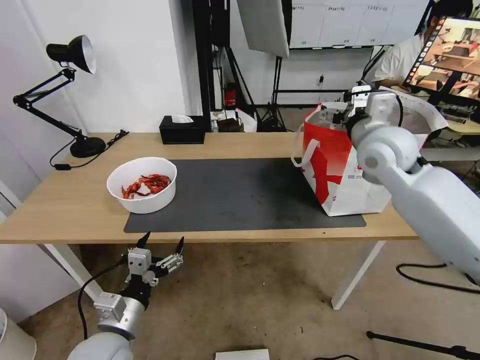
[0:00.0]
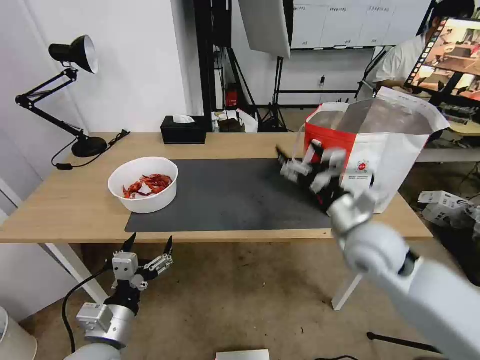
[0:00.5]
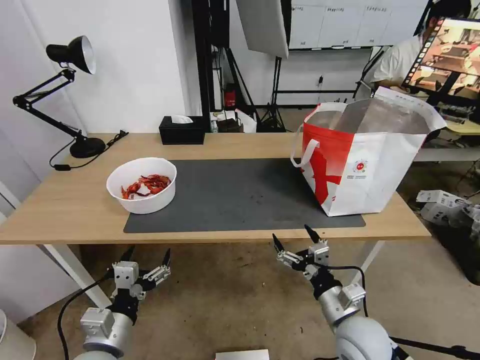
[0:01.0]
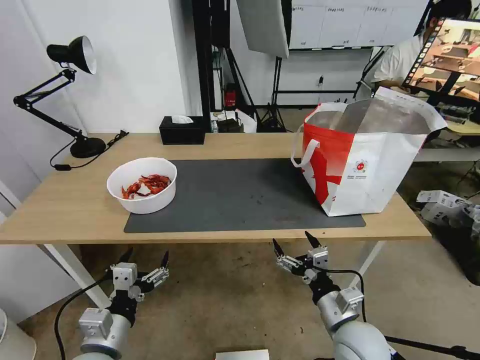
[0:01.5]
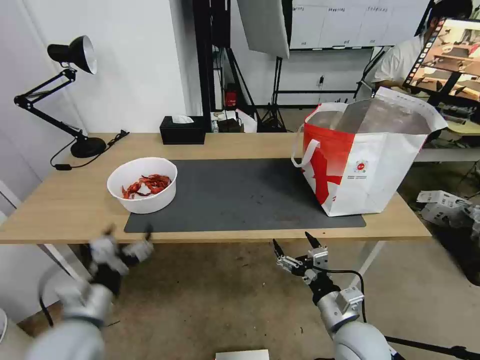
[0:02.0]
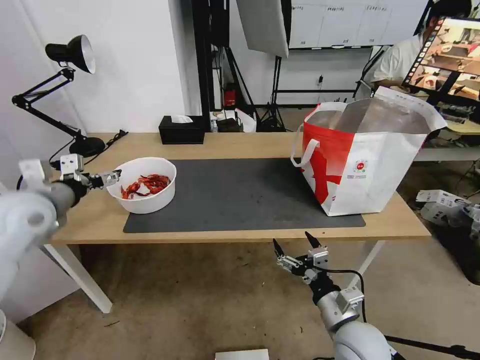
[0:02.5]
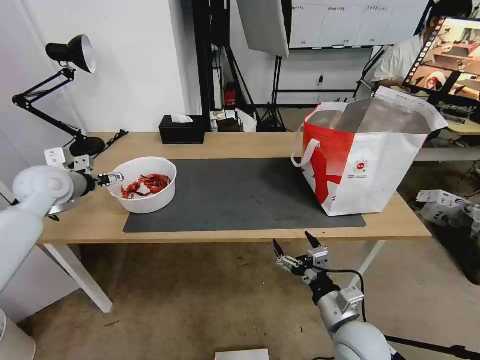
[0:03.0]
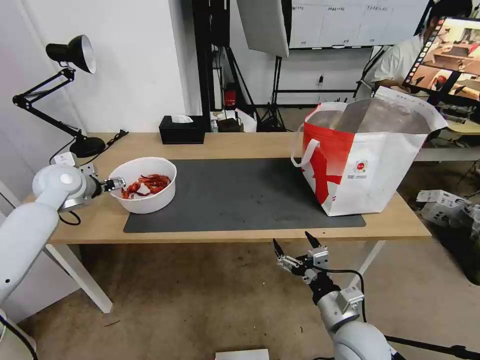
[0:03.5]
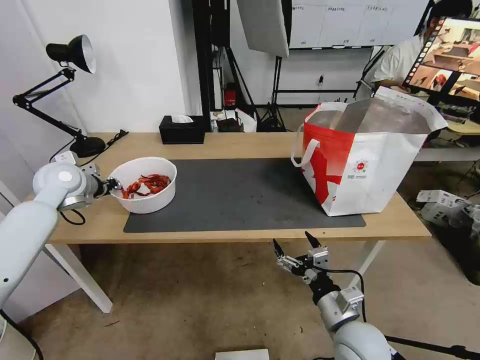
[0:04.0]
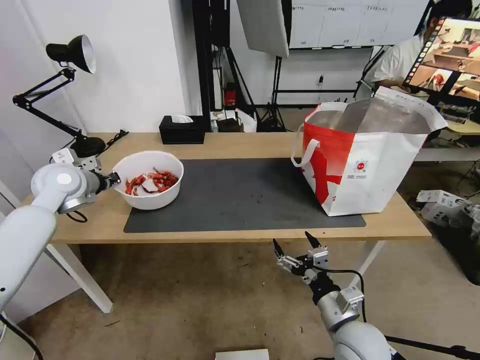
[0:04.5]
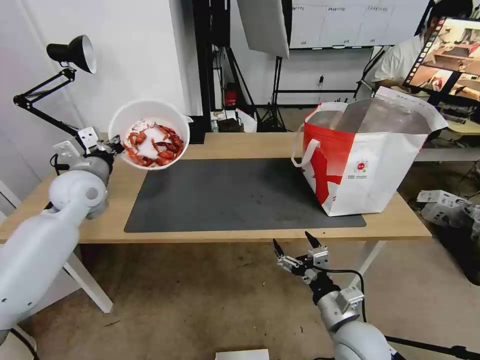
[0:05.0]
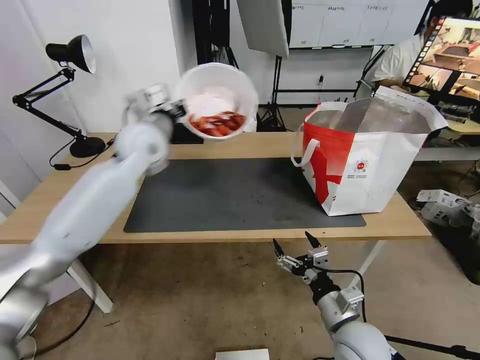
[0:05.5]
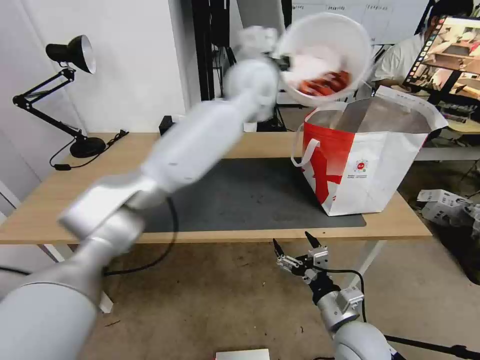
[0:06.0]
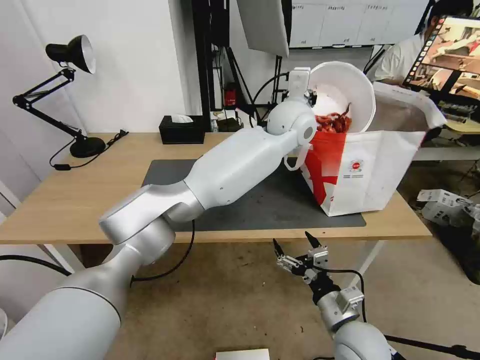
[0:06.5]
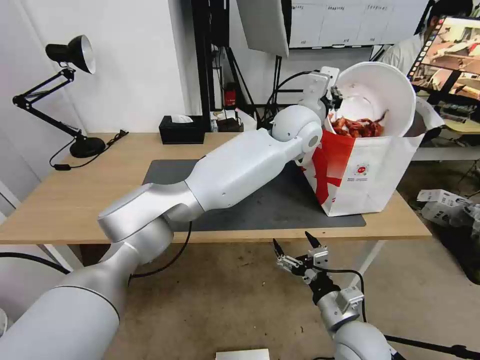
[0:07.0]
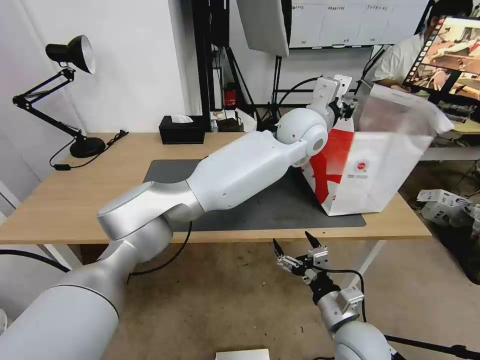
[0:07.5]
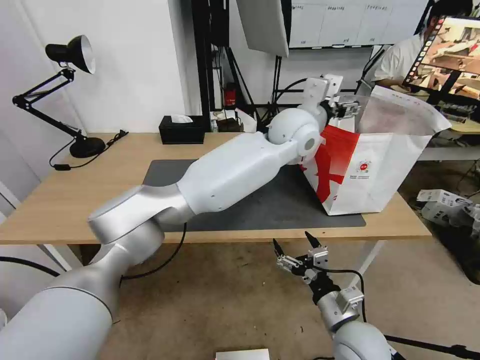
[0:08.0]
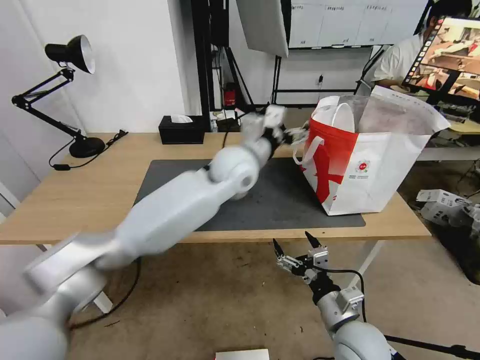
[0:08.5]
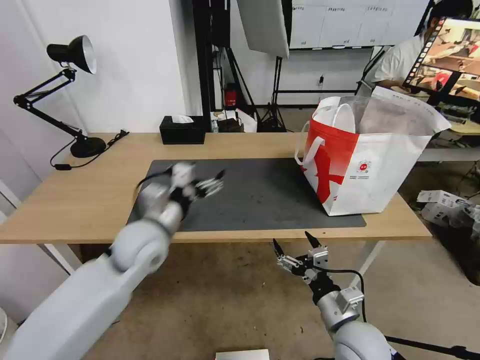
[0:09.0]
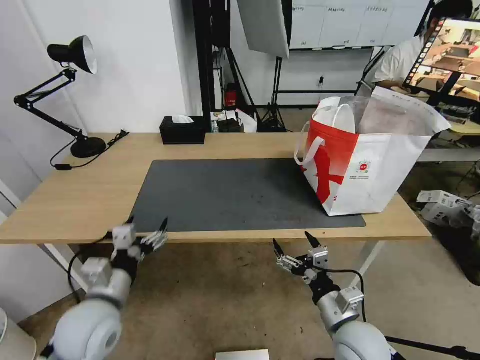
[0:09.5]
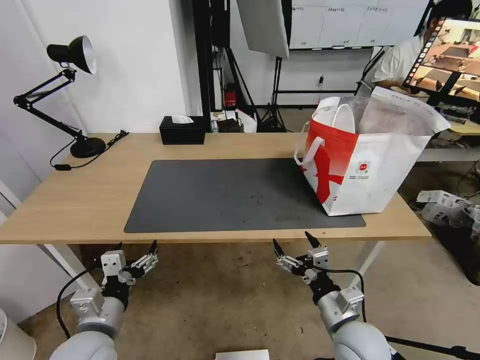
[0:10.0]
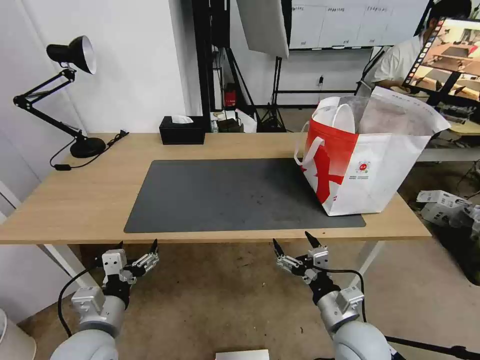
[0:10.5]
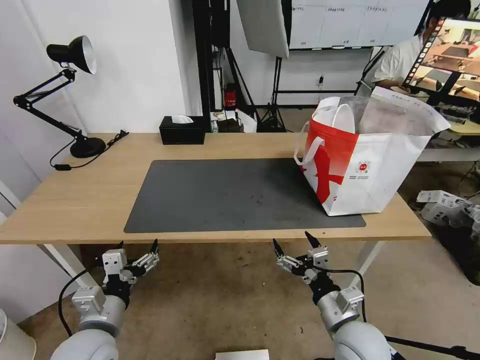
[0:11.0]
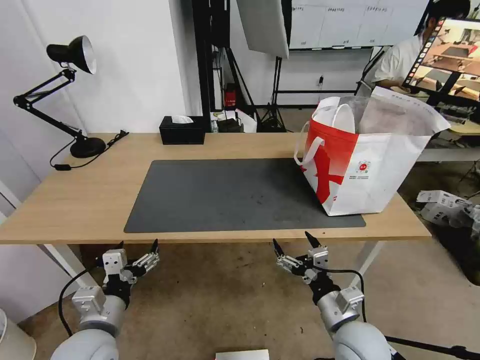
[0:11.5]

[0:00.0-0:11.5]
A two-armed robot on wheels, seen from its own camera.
Task of the whole recording: Pick up the trash from the table and place it into the takeout bag.
0:00.0 to 0:02.0: The right gripper is displaced downward and backward by approximately 40 cm.
0:02.0 to 0:04.0: The left gripper goes some 40 cm forward, upward and to the left, and closes.
0:04.0 to 0:06.0: The left gripper moves to the right, approximately 40 cm, and closes.
0:06.0 to 0:07.5: The left gripper is displaced to the right and downward by some 10 cm, and opens.
0:07.5 to 0:09.5: The left gripper goes approximately 50 cm to the left, backward and downward, and opens.
0:09.5 to 0:11.5: The grippers stay close to where they were, moving slightly.
